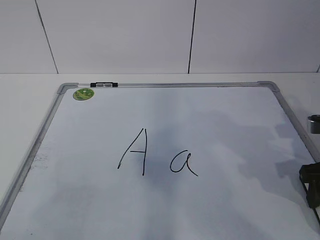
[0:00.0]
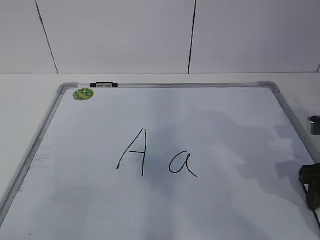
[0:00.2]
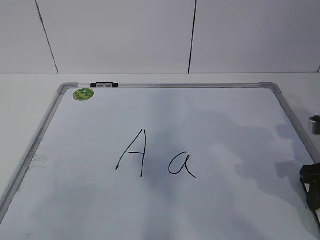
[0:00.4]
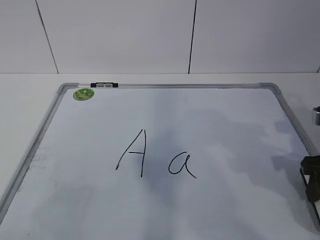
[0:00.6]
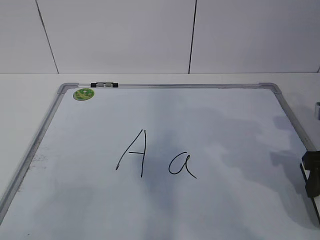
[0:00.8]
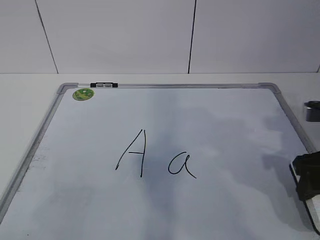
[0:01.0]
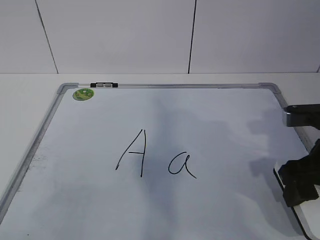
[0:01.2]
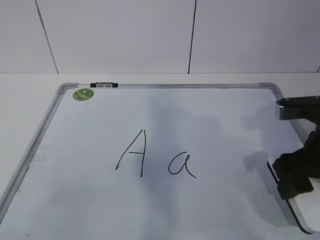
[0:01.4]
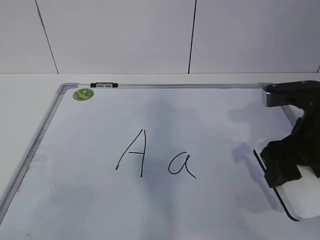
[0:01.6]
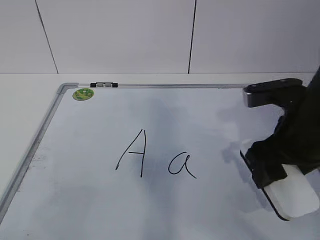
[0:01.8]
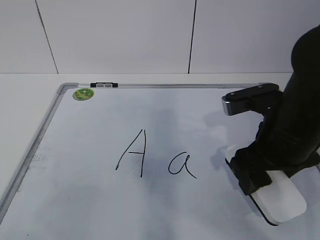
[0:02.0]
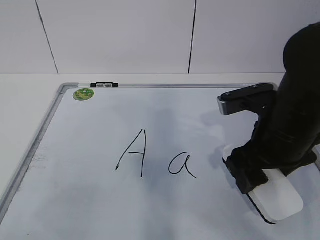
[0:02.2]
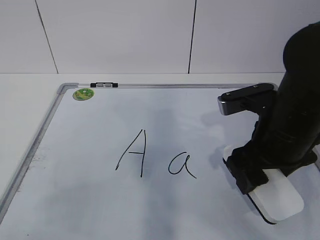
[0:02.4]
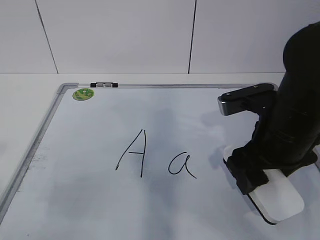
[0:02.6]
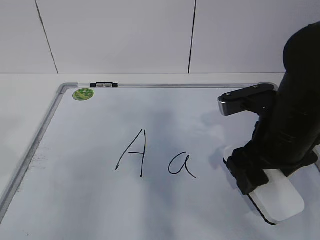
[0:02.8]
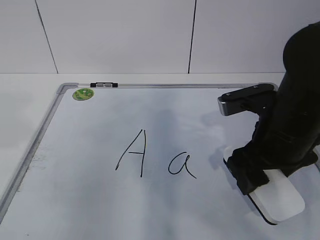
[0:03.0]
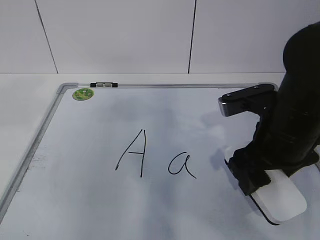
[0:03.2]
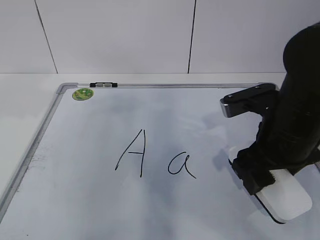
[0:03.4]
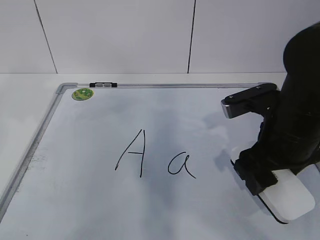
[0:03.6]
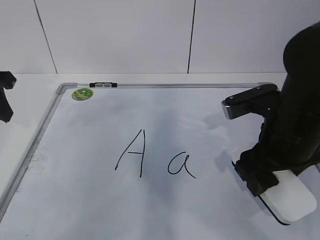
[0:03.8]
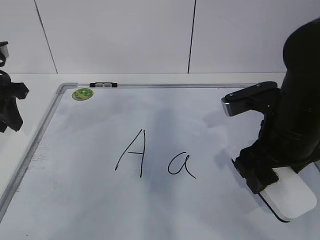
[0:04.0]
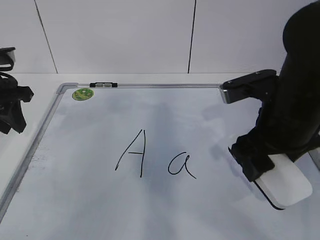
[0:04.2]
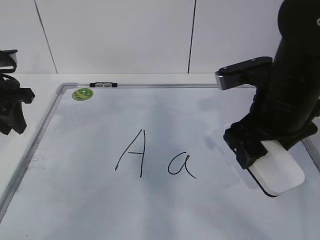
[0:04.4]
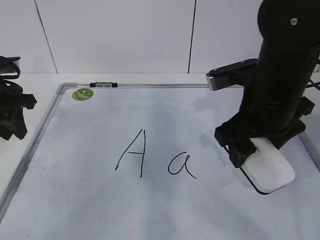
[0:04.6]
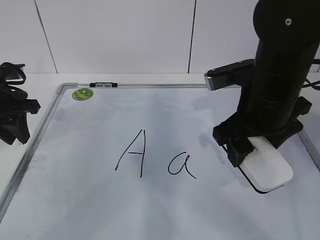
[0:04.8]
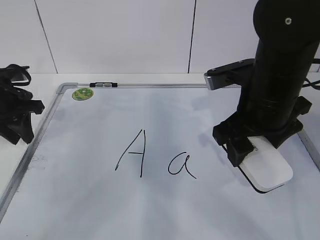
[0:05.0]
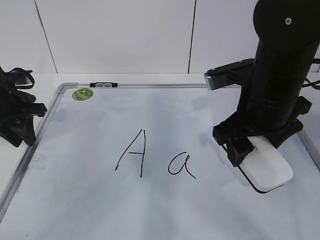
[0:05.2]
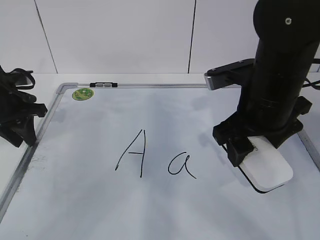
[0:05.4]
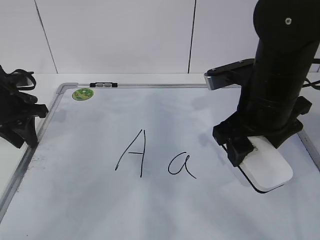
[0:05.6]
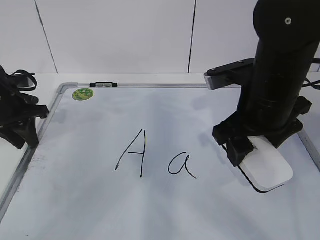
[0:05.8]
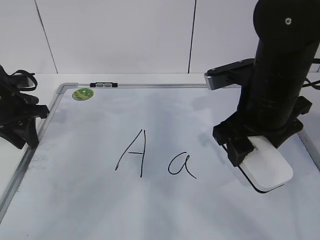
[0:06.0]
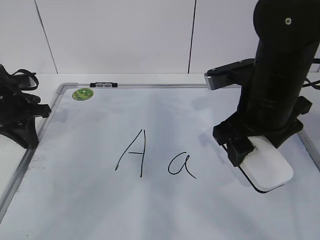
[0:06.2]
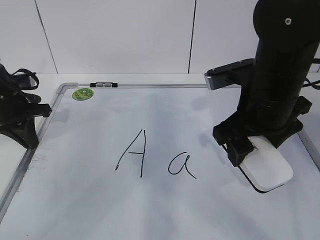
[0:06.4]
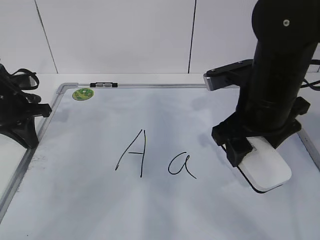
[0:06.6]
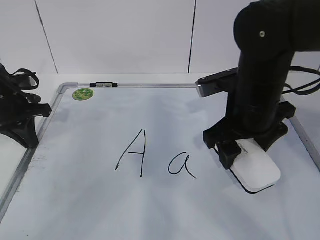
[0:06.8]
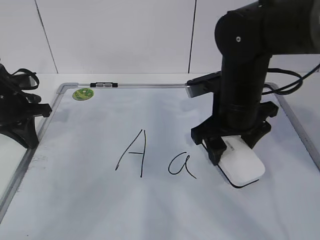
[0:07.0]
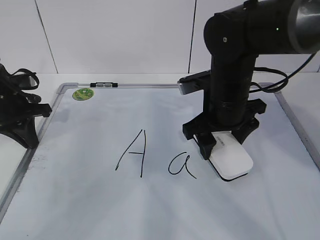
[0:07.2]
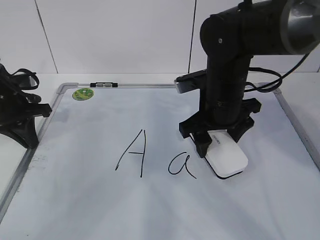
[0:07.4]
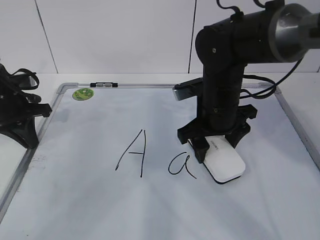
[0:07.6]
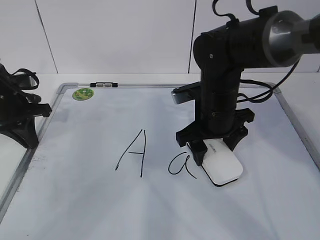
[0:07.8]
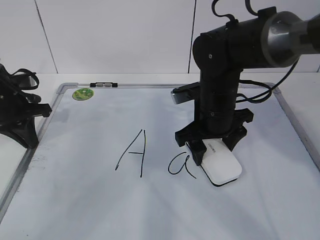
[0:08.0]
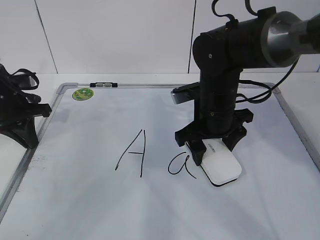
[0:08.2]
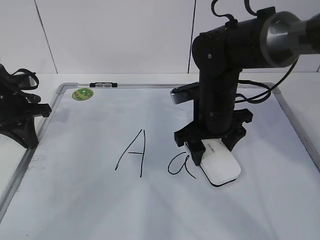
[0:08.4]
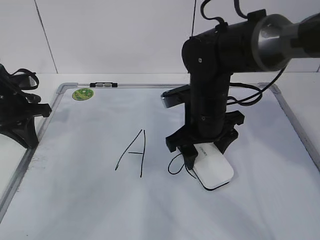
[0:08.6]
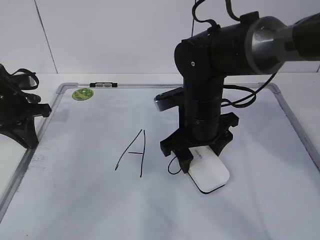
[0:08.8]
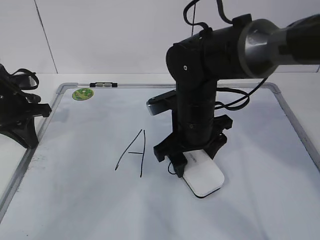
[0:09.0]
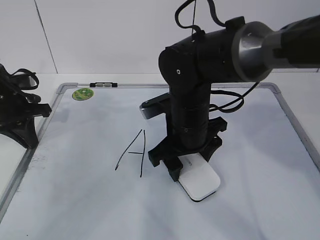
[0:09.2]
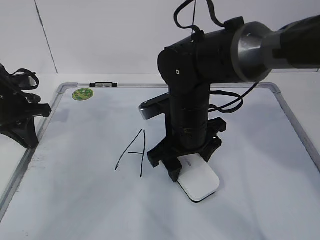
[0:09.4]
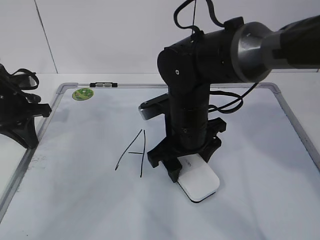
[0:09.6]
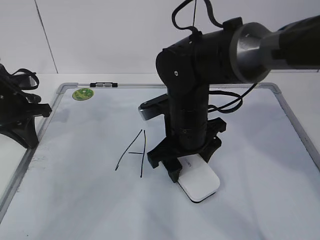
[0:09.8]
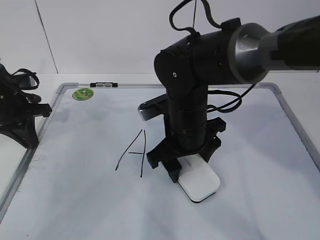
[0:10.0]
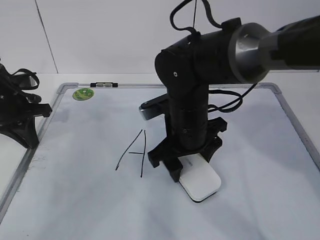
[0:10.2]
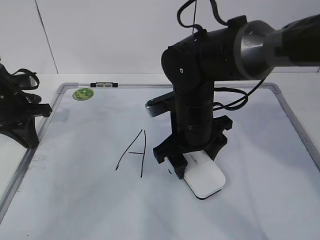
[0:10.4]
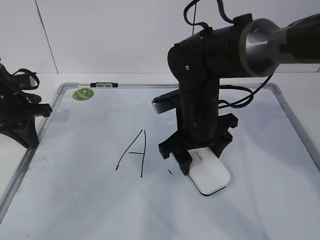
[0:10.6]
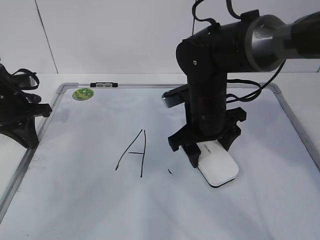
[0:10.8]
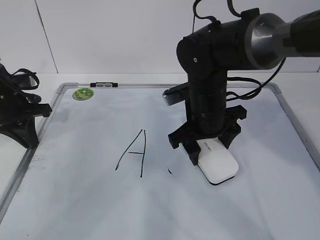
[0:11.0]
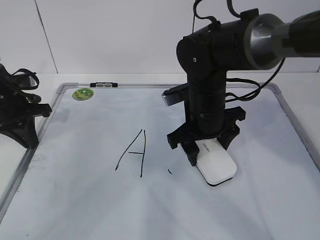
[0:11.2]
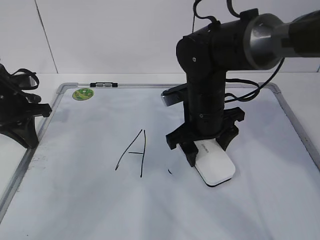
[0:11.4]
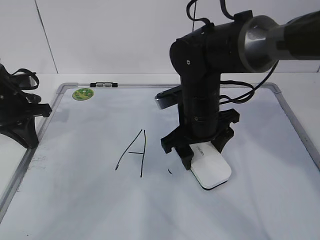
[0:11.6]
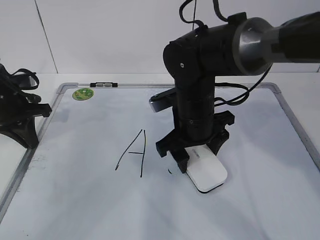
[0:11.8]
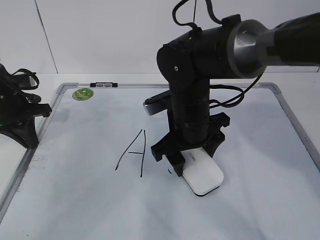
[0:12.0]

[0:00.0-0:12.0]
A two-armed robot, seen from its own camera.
Task of the whole recording: pick up the eraser on the blackboard and erase the letter "a".
Step, 0:00.0 to 0:04.0: Hold the drawing board steady with your left hand.
Step, 0:04.2 to 0:09.8: Erase the letter a with your right hand.
0:00.0 to 0:01.6: The right gripper moves to the left and upward, some 10 cm.
0:03.0 to 0:04.4: The left gripper moves forward and downward, roughly 20 cm.
0:04.4 to 0:06.0: The left gripper shifts about 5 cm downward.
0:06.0 to 0:07.6: The right gripper is displaced forward and downward by approximately 10 cm. Meanwhile the left gripper closes.
0:07.6 to 0:09.0: The right gripper ends up about 5 cm from where it was.
0:09.0 to 0:10.4: The two grippers keep their place.
0:10.4 to 0:12.0: The grippers make only small movements.

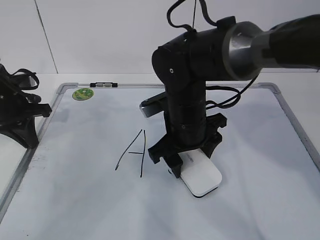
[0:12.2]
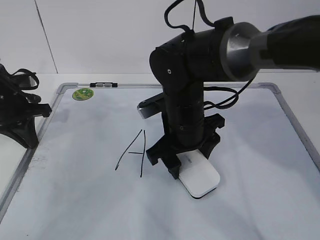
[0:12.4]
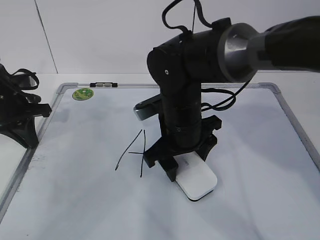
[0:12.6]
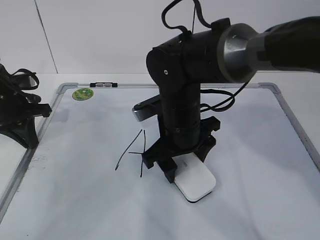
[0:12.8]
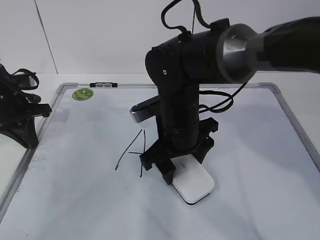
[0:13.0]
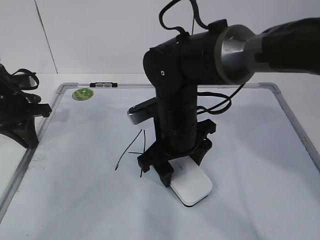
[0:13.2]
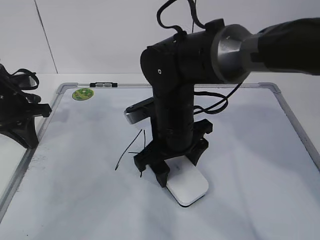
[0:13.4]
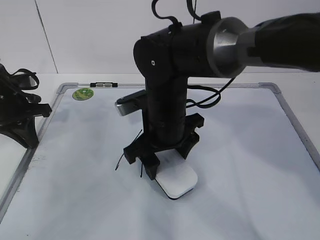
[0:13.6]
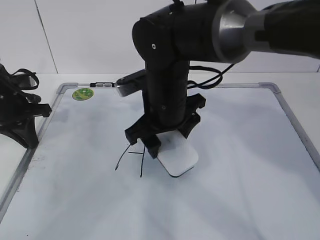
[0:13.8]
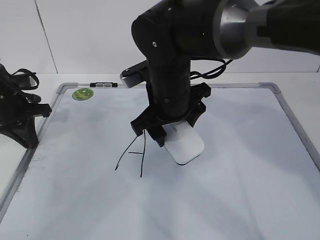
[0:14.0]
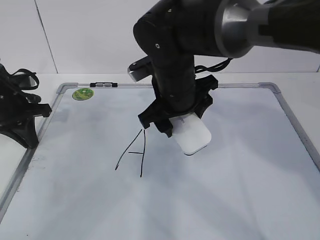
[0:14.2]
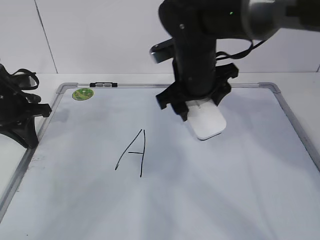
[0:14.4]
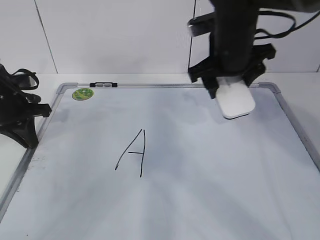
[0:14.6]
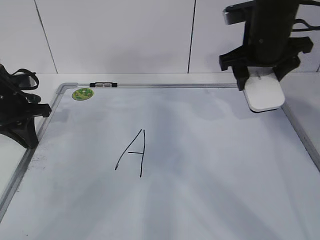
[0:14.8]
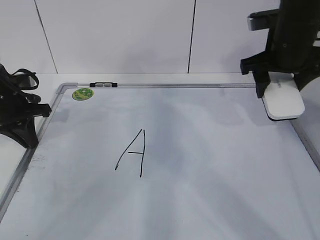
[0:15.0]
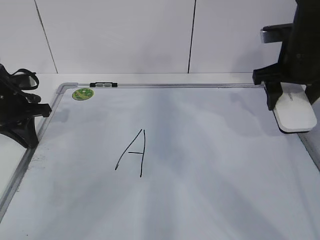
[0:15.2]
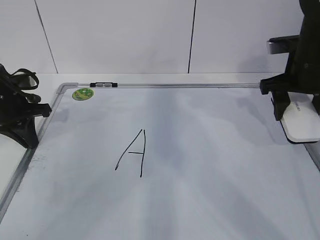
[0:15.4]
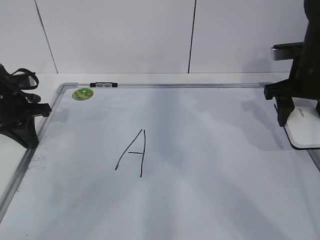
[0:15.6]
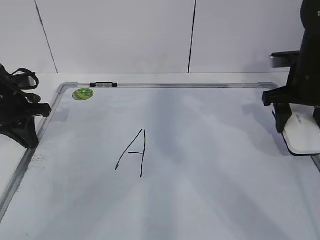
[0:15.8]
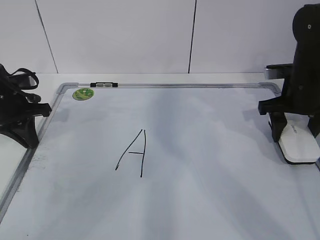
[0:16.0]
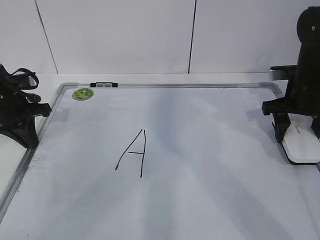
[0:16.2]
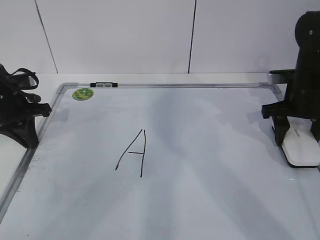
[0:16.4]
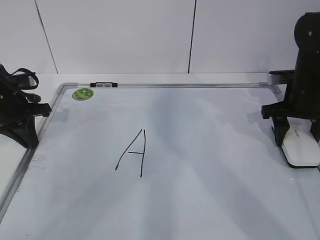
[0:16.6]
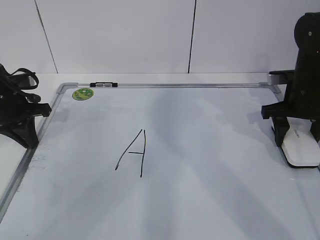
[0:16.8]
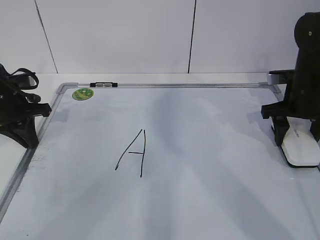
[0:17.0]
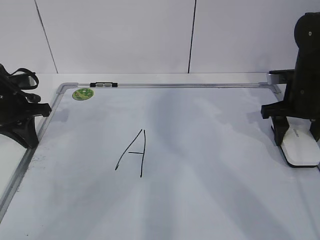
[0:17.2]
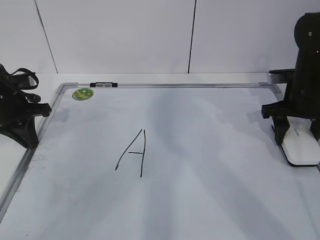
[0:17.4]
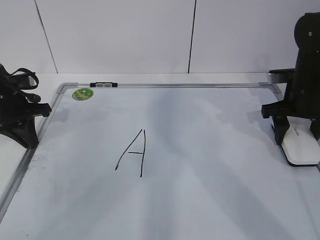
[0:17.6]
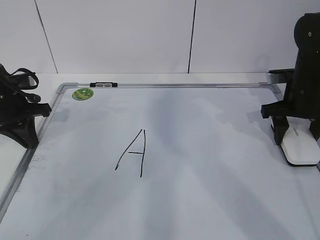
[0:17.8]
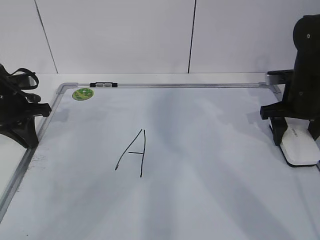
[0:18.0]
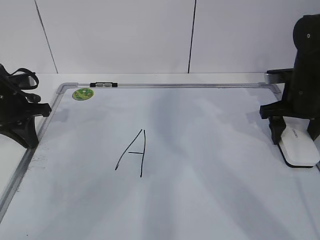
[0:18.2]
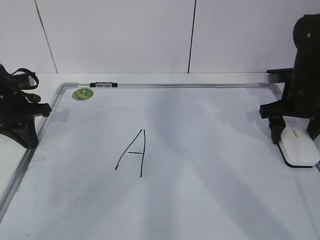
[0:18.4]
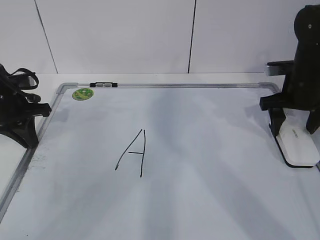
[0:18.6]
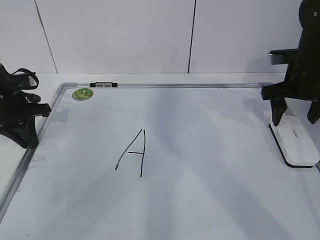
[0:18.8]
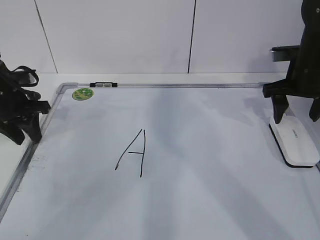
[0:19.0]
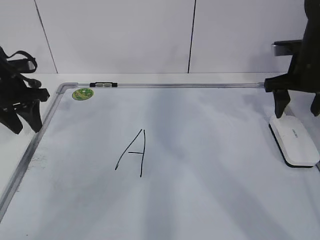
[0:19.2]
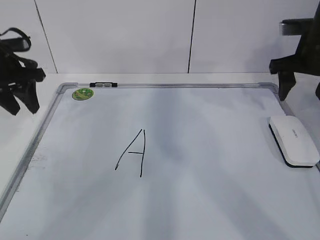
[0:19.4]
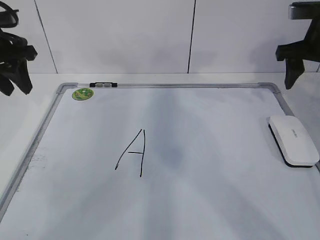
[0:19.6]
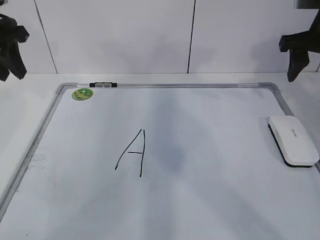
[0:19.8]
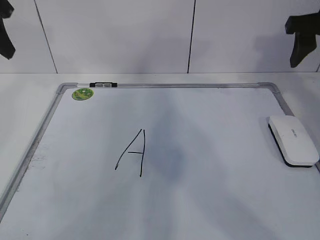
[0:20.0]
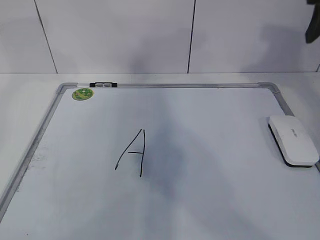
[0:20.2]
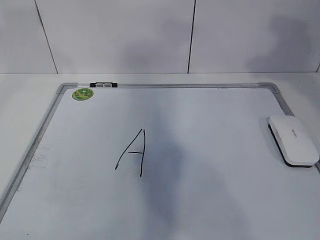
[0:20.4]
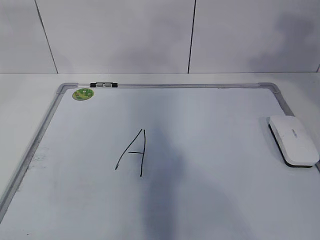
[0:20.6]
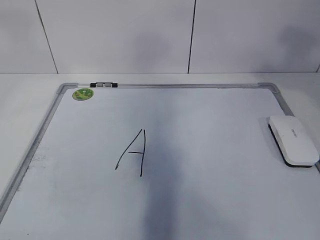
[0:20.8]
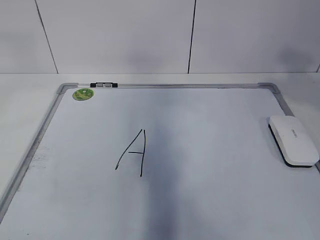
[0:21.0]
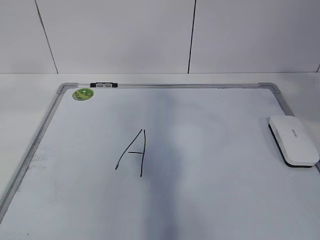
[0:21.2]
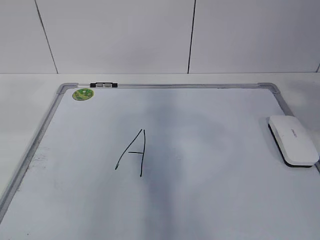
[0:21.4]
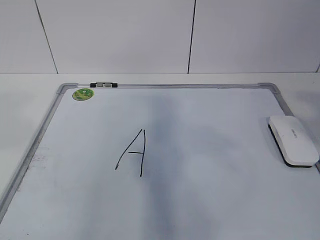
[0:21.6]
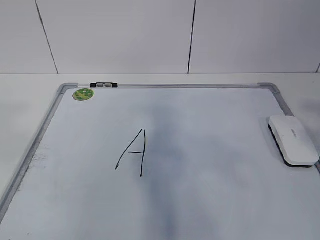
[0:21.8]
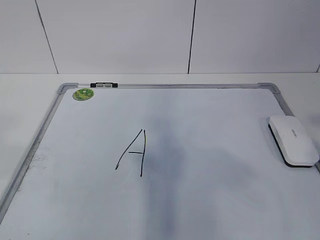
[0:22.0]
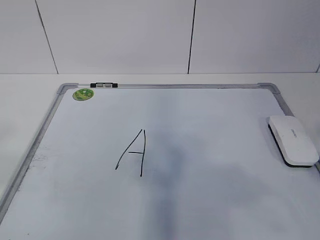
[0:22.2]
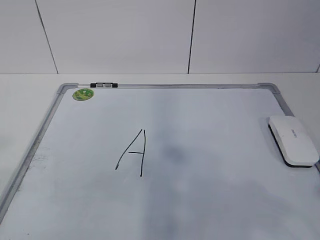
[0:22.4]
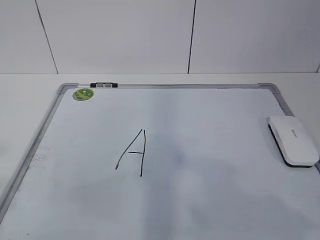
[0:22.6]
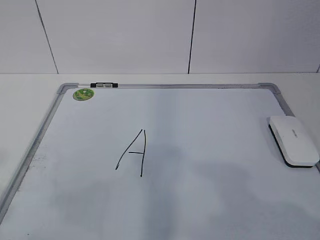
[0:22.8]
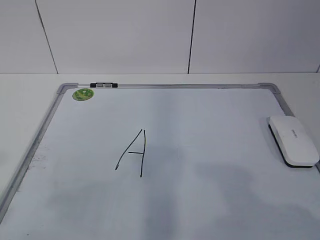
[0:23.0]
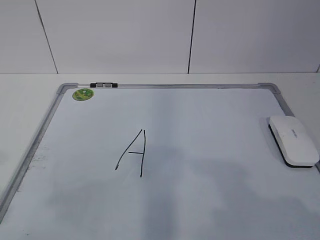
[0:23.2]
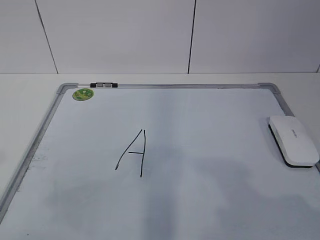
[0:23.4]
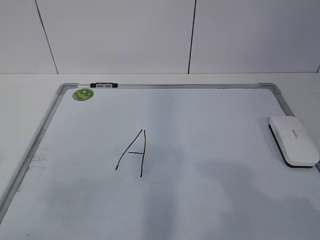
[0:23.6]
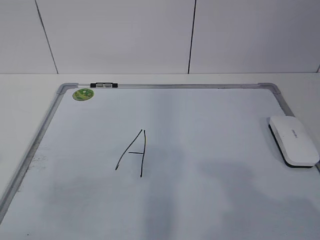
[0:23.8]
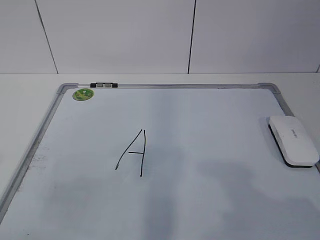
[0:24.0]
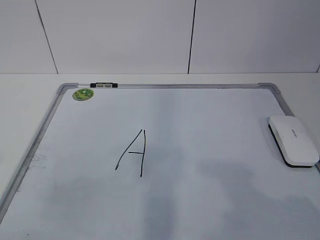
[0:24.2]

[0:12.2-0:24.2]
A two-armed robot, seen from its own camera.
Task of the whole recording: pick up the eraser on the blackboard and erase the letter "a".
0:12.2 to 0:13.8: There are only small adjustments of the grippers.
0:13.8 to 0:15.2: The right gripper goes about 20 cm to the right.
0:15.2 to 0:16.6: The right gripper travels downward by approximately 5 cm.
0:16.6 to 0:18.2: The right gripper opens.
0:18.2 to 0:19.8: Both grippers move upward, about 15 cm. The right gripper closes up; the left gripper opens.
0:19.8 to 0:21.2: The grippers both shift backward and upward by some 30 cm.
0:21.2 to 0:22.6: Both grippers move downward and backward, about 15 cm.
